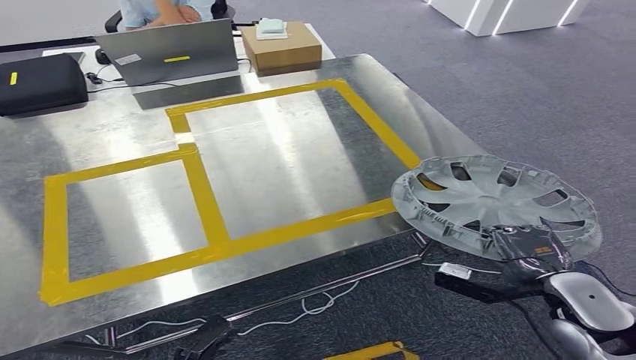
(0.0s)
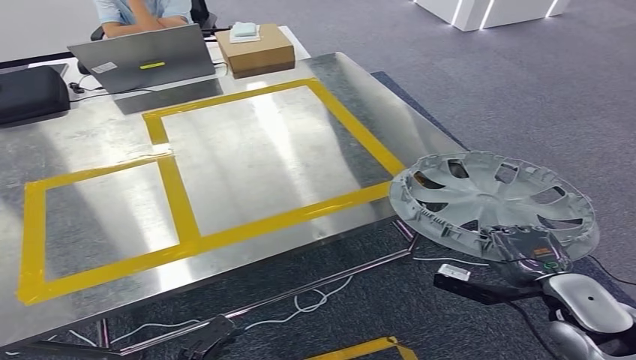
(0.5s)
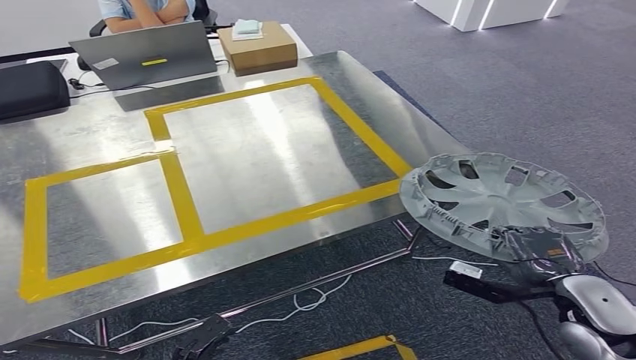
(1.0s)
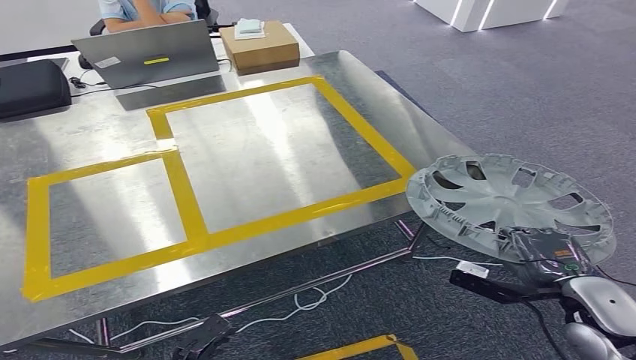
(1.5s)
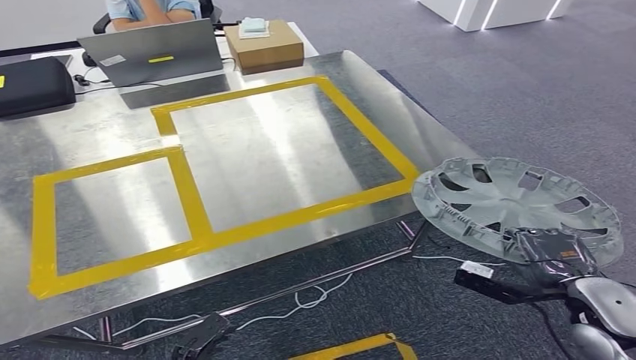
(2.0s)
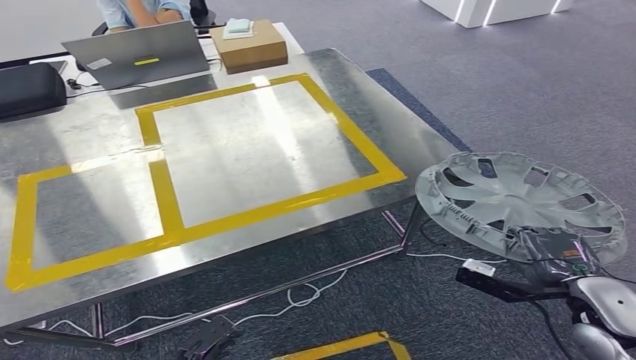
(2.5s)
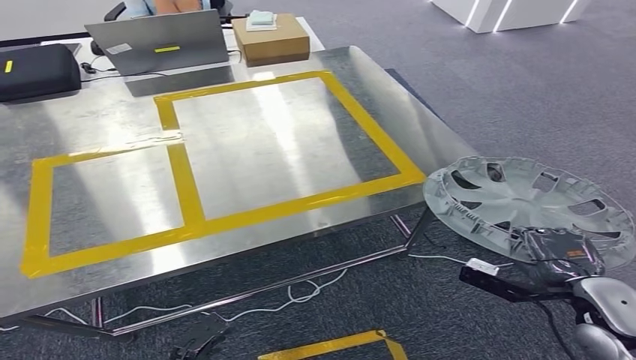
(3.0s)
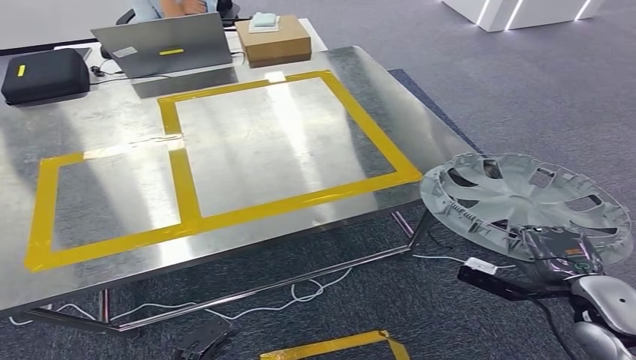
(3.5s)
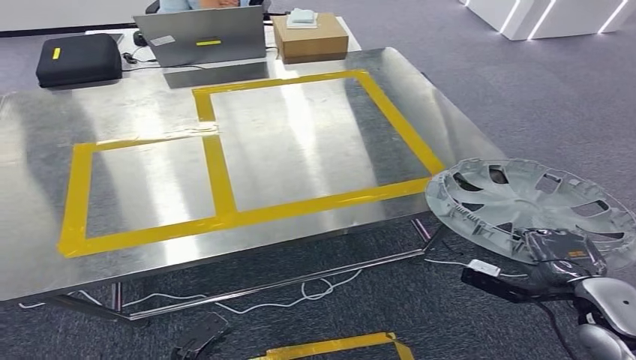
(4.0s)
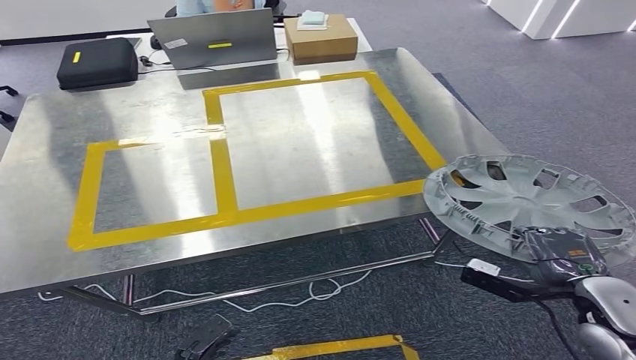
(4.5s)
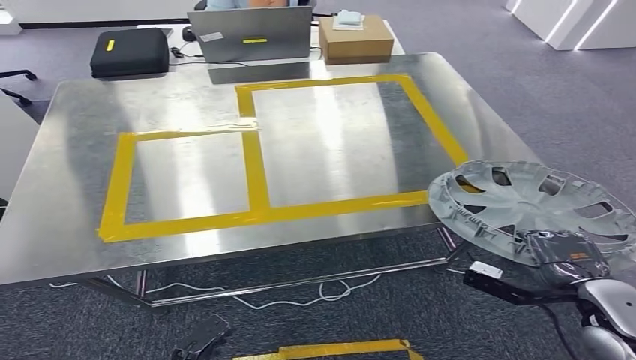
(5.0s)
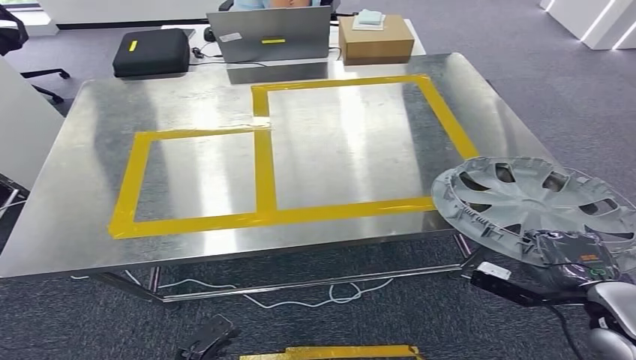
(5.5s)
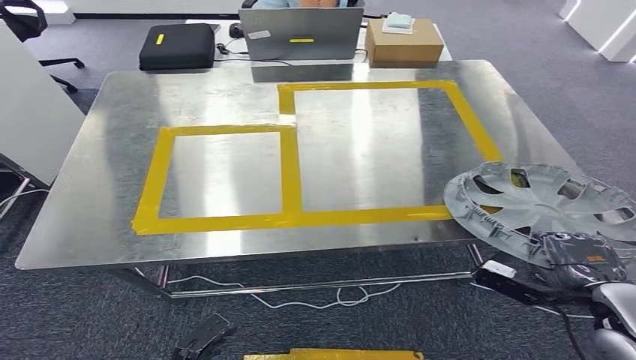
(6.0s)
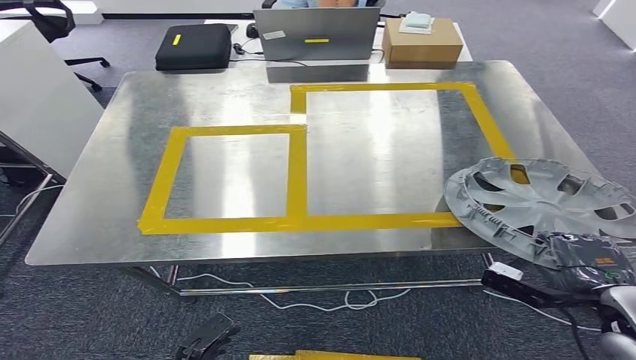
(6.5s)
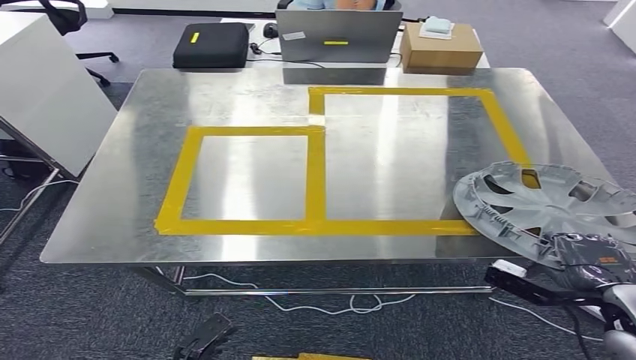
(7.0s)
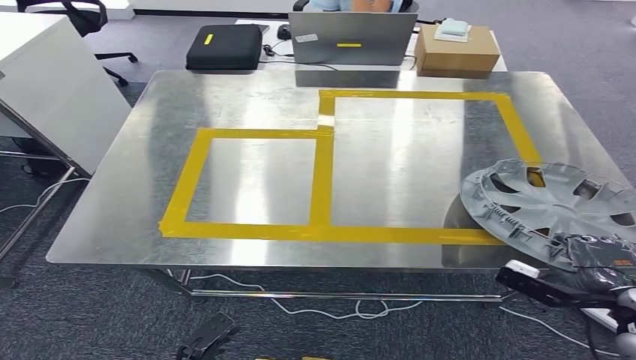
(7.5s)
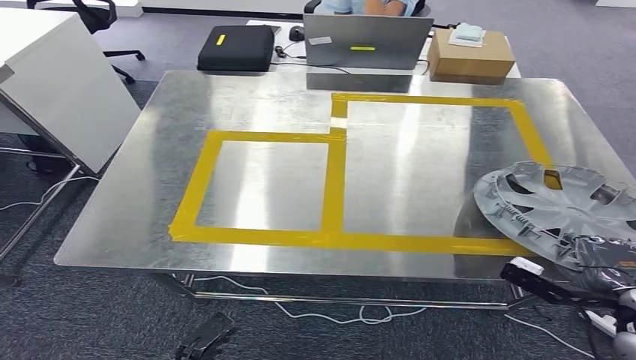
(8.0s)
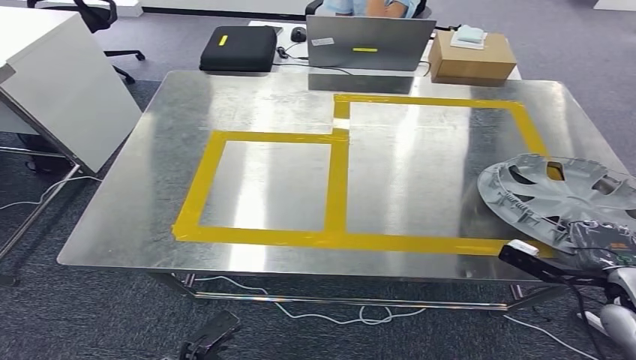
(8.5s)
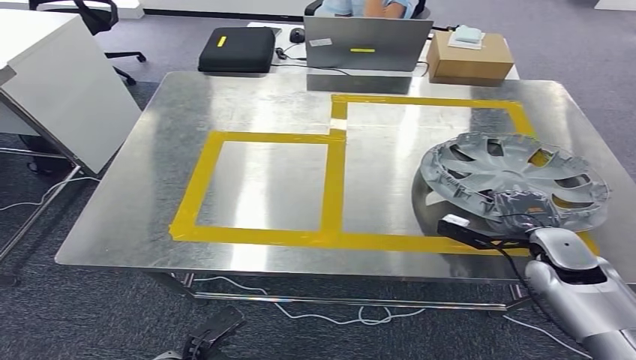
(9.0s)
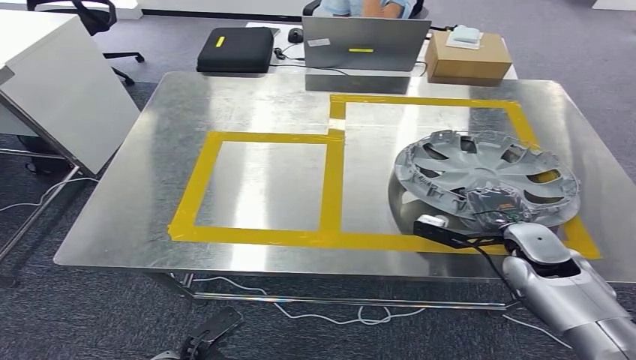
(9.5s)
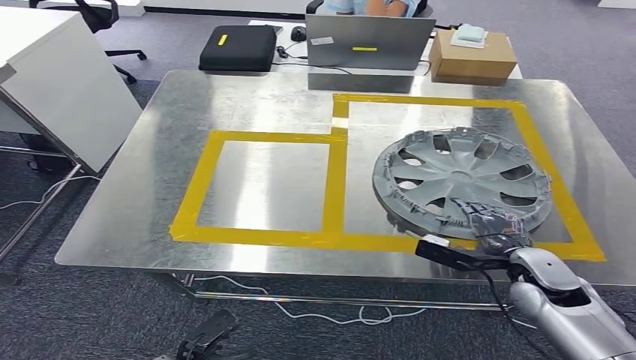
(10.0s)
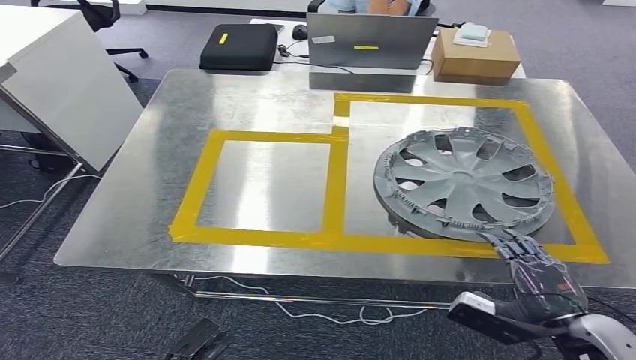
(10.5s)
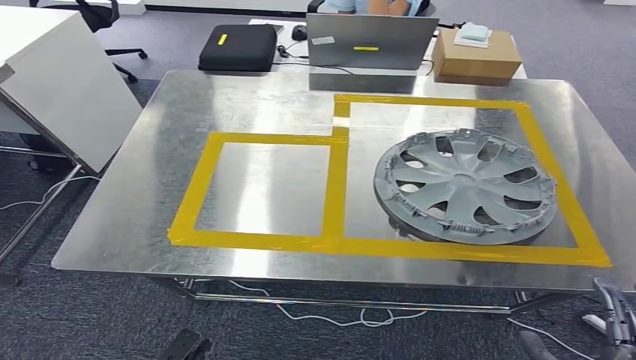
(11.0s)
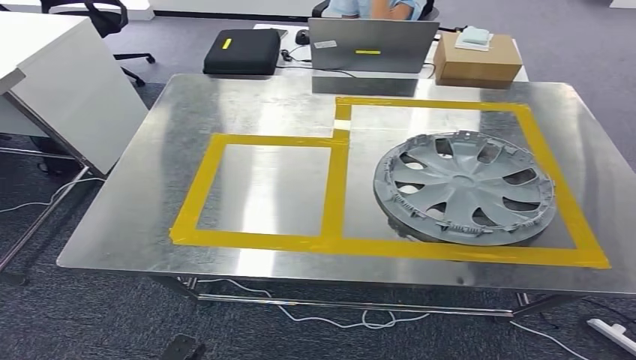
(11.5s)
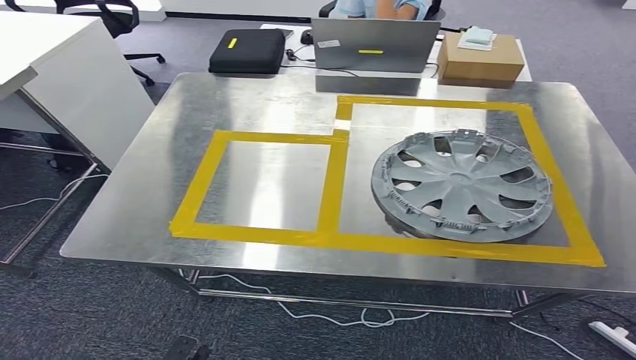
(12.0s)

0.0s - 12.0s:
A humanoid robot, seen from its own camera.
8.0s - 10.0s: The right hand moves forward and to the left, about 15 cm.

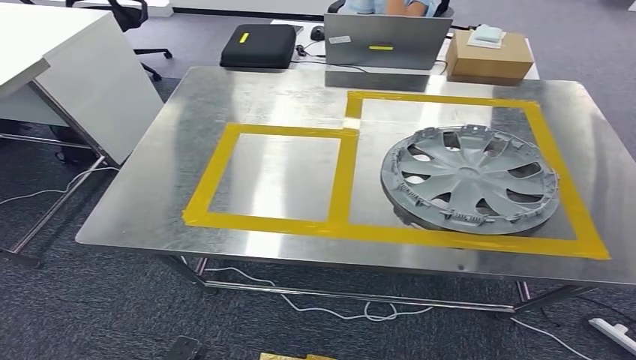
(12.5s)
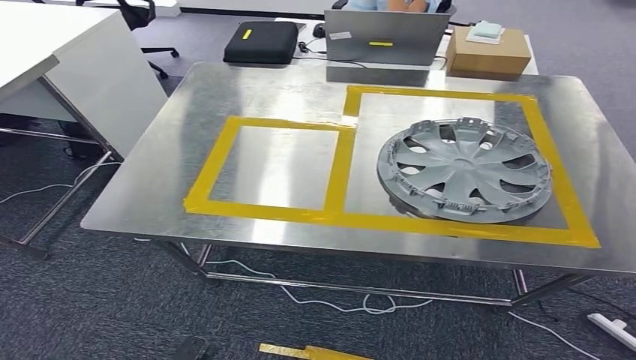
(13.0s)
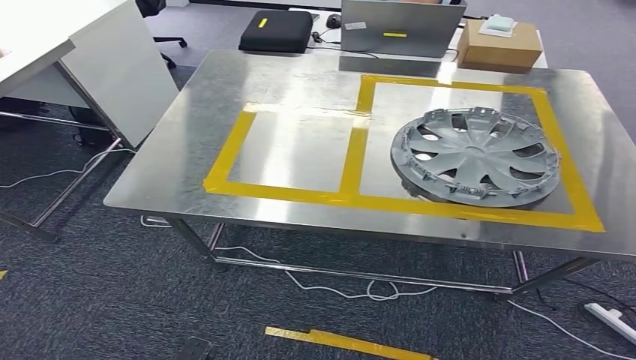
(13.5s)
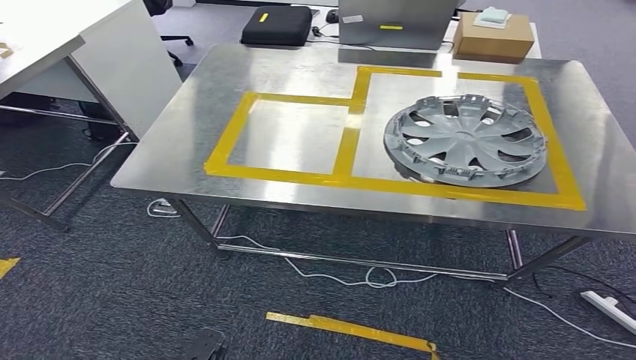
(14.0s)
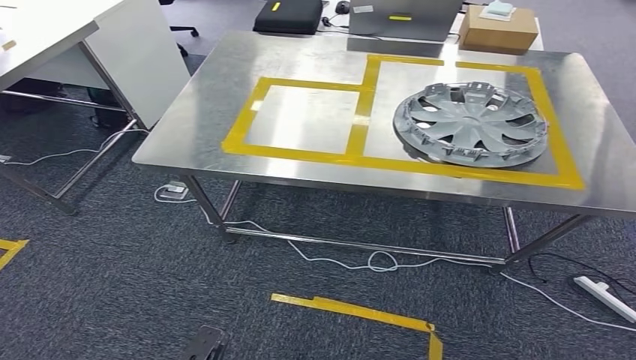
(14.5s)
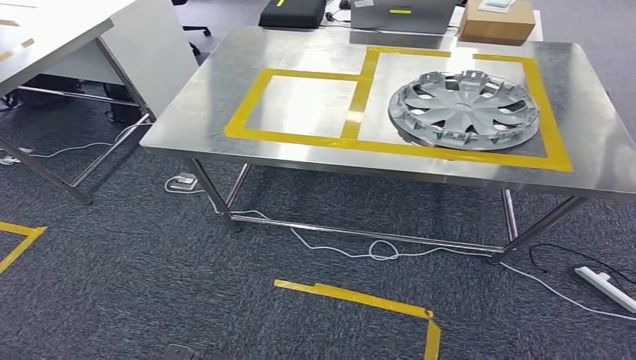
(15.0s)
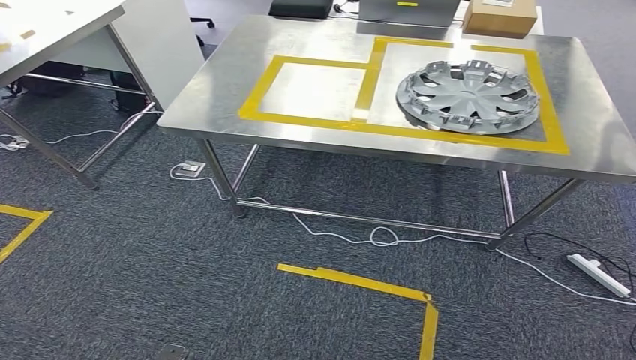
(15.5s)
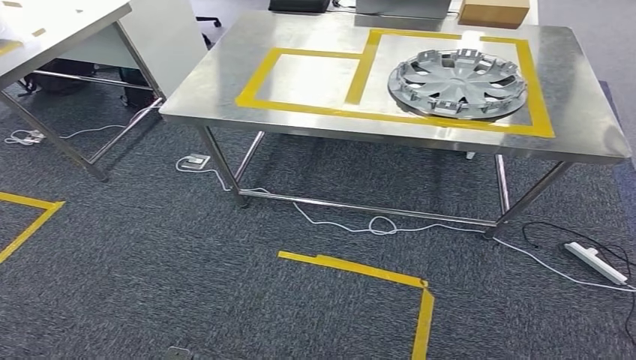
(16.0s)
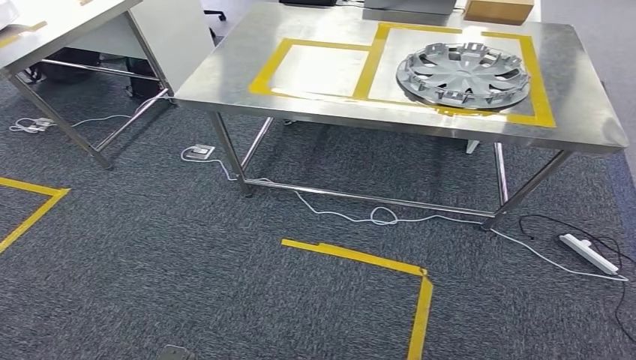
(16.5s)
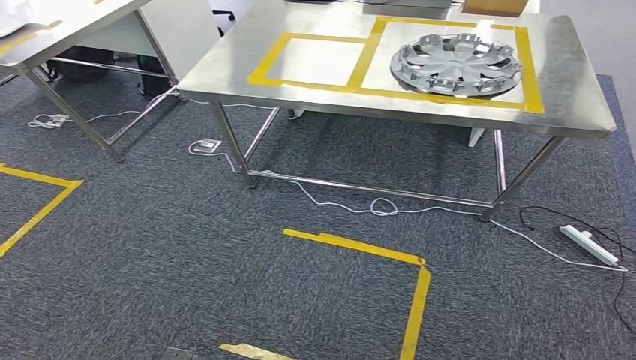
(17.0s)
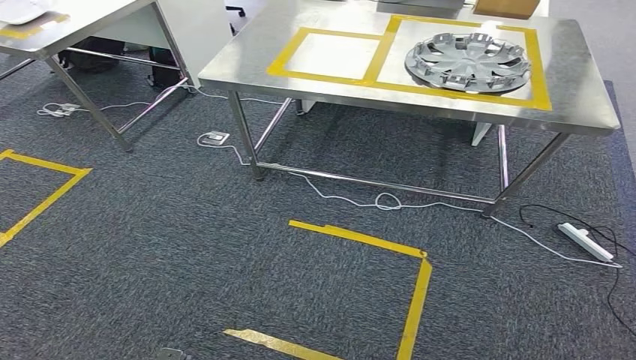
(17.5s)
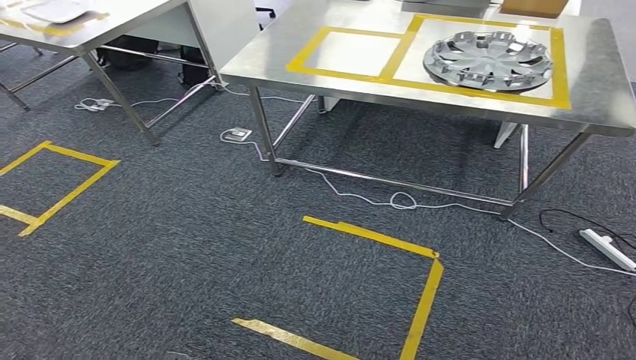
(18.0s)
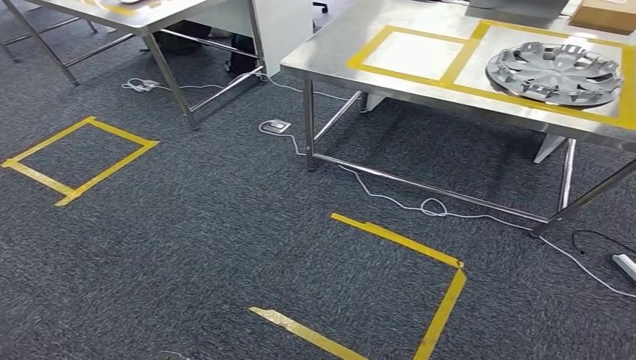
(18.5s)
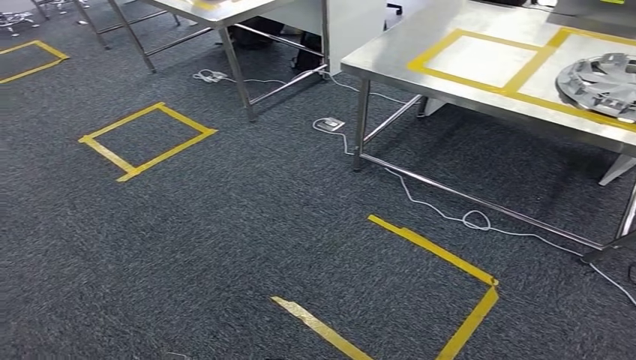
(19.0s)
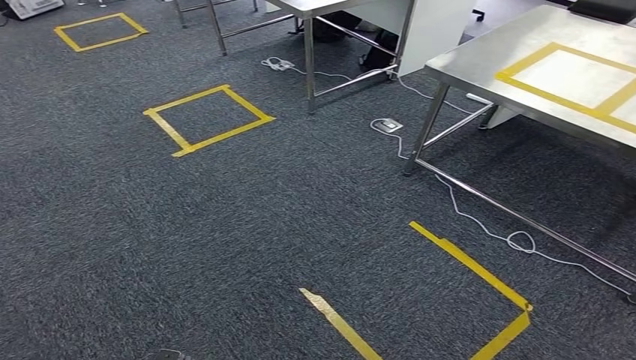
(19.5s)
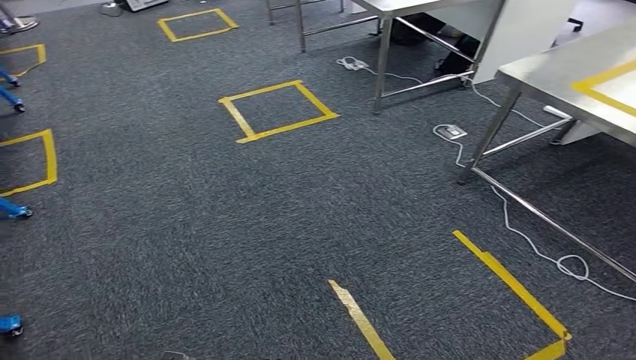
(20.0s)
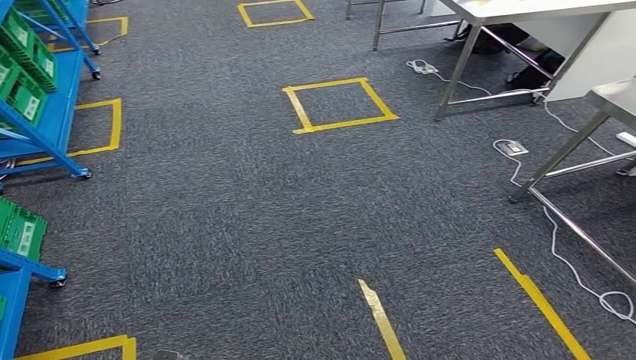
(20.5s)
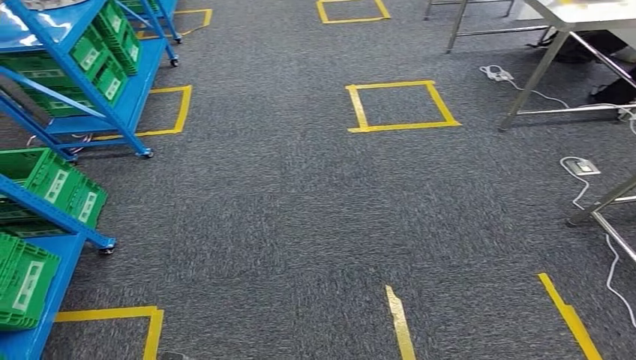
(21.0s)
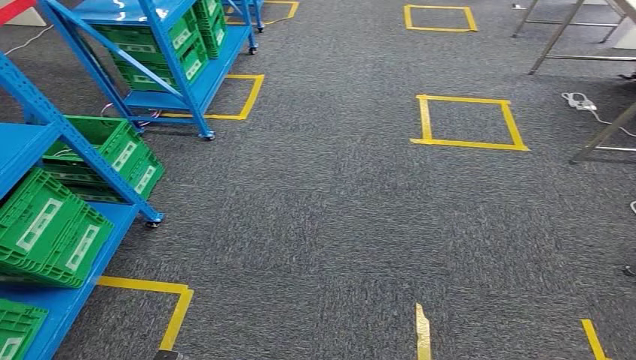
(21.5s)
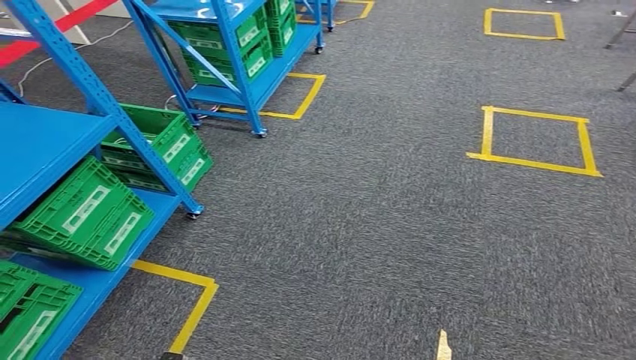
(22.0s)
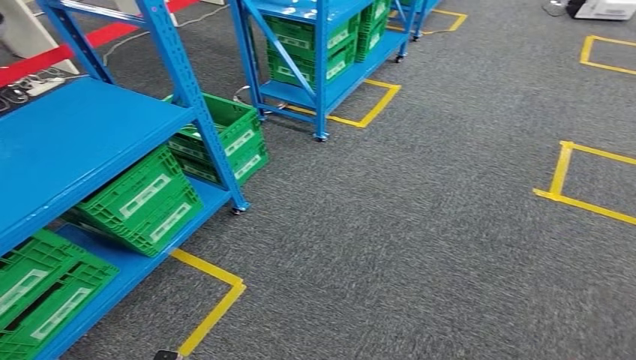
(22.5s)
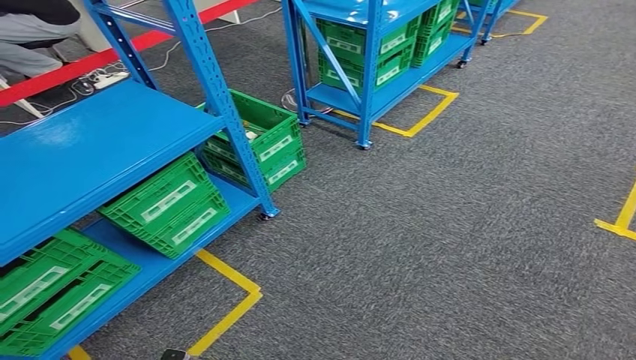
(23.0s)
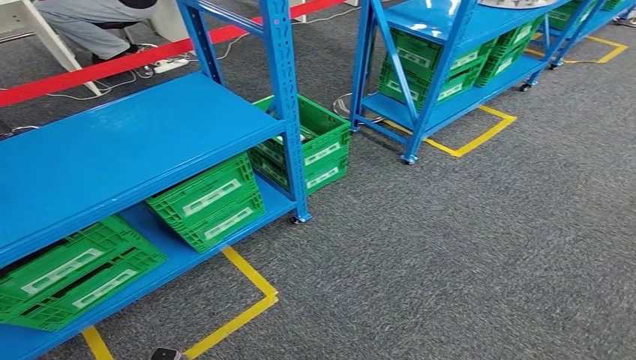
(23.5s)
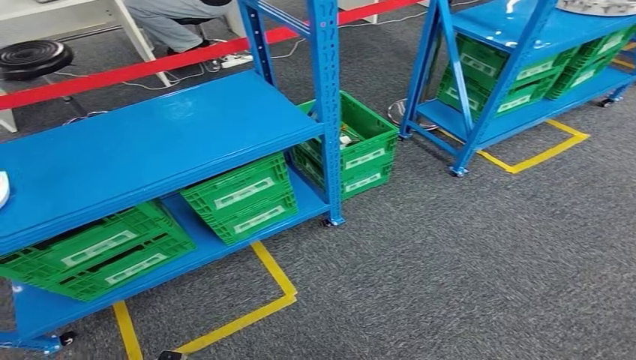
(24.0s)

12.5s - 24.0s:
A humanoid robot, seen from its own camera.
Step, 12.5s - 14.5s: Insert the small parts into the corresponding slots on the workbench.
